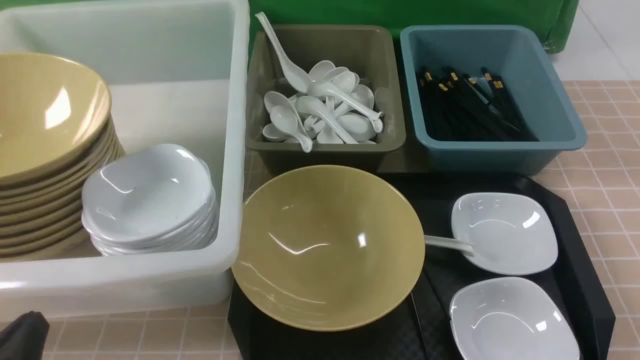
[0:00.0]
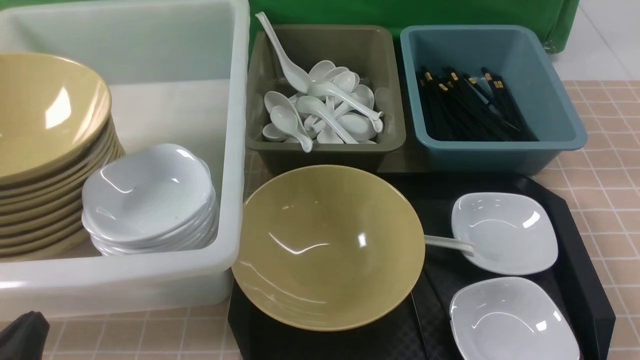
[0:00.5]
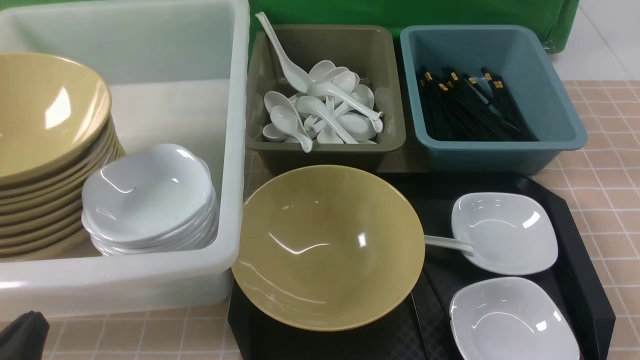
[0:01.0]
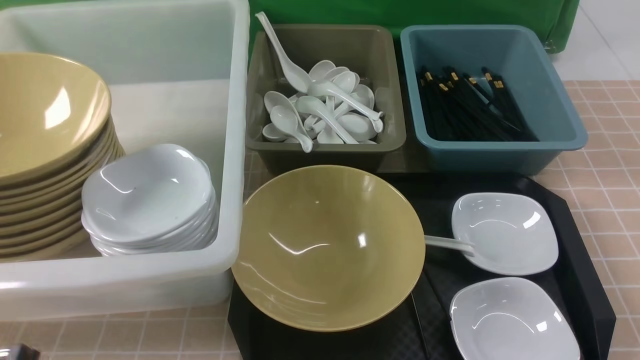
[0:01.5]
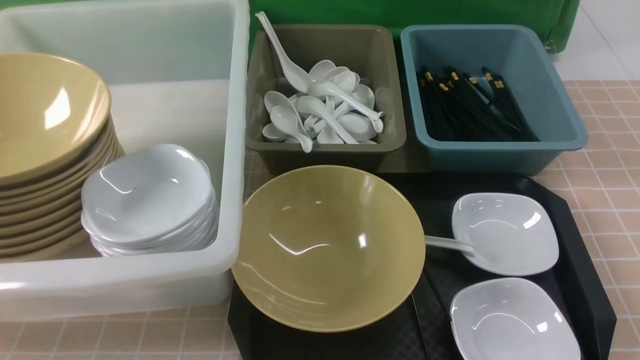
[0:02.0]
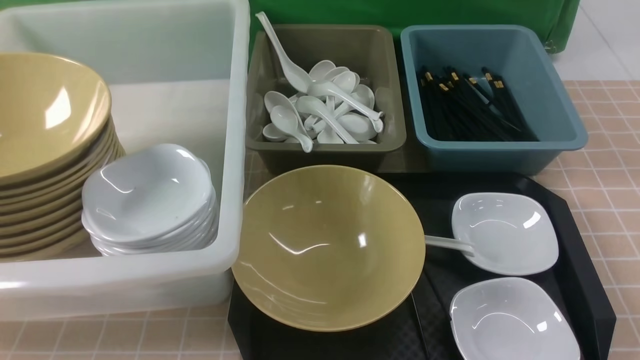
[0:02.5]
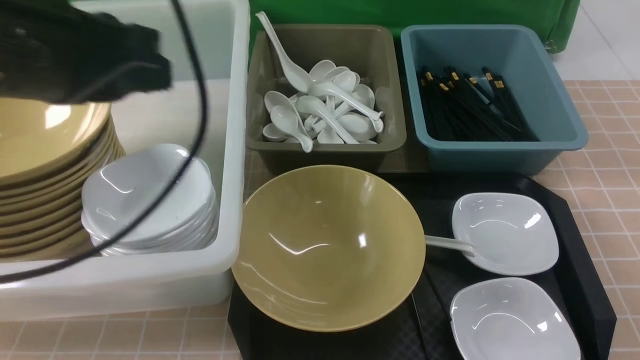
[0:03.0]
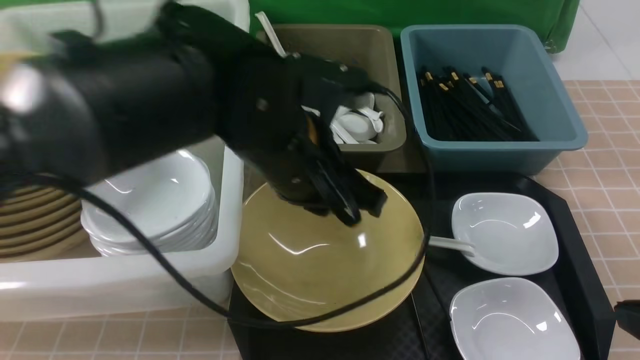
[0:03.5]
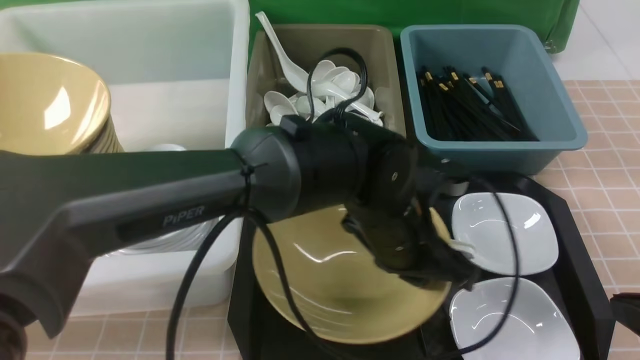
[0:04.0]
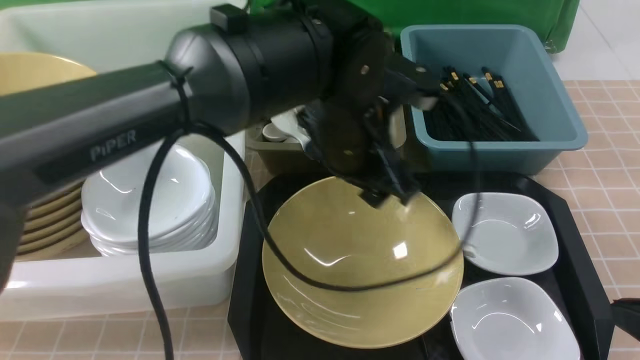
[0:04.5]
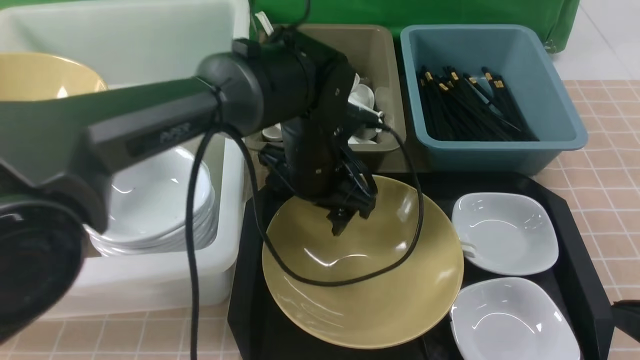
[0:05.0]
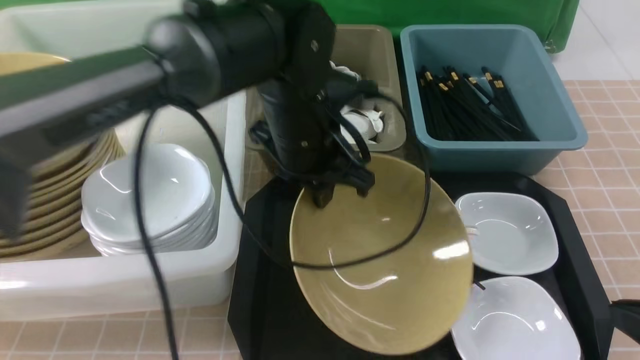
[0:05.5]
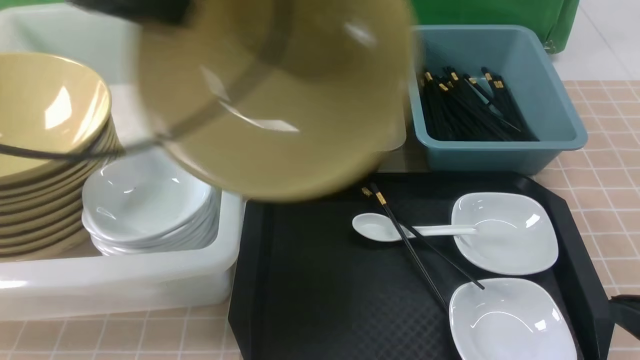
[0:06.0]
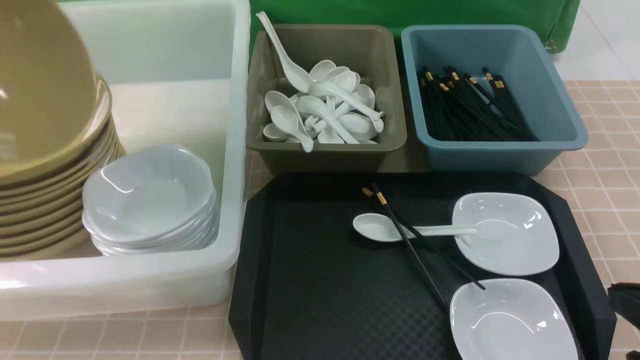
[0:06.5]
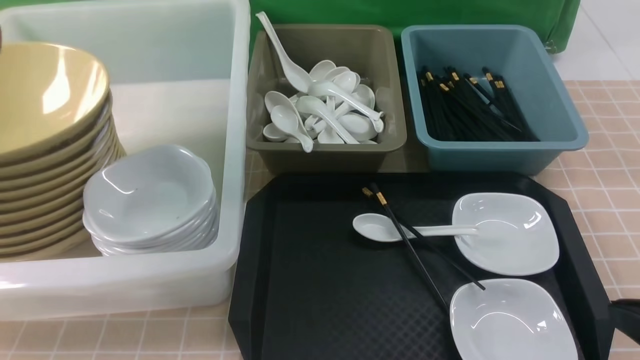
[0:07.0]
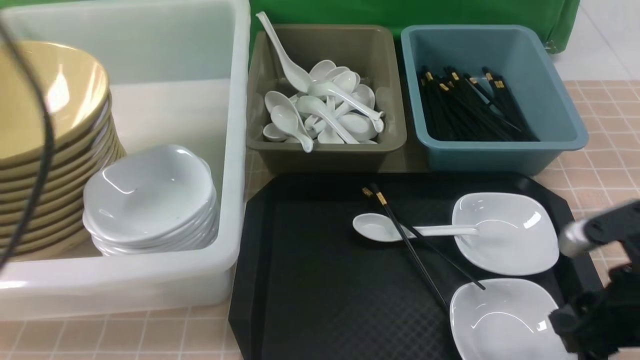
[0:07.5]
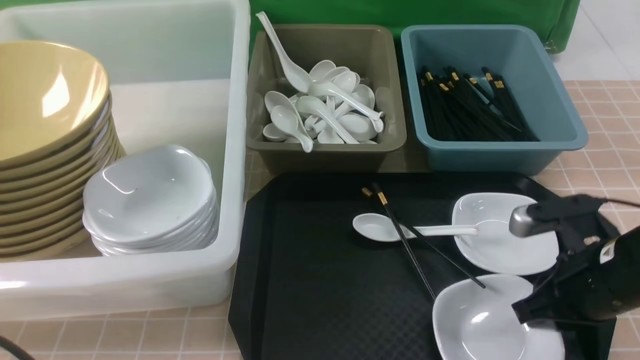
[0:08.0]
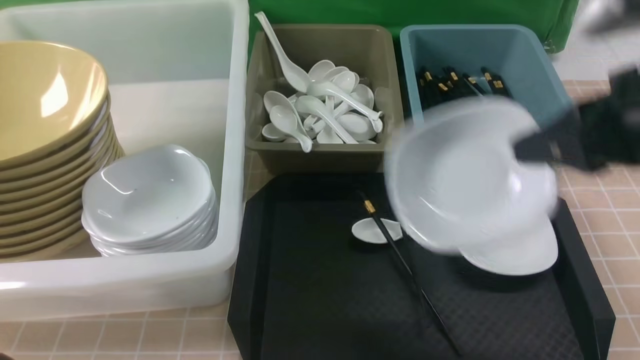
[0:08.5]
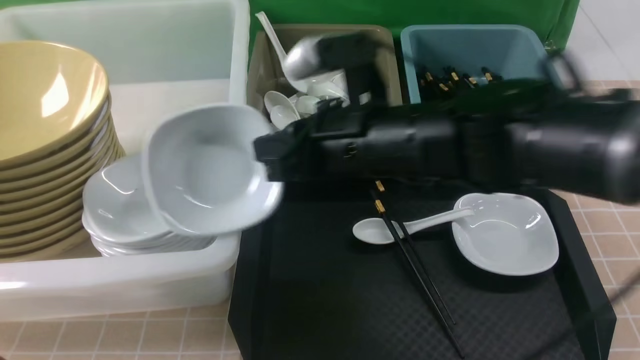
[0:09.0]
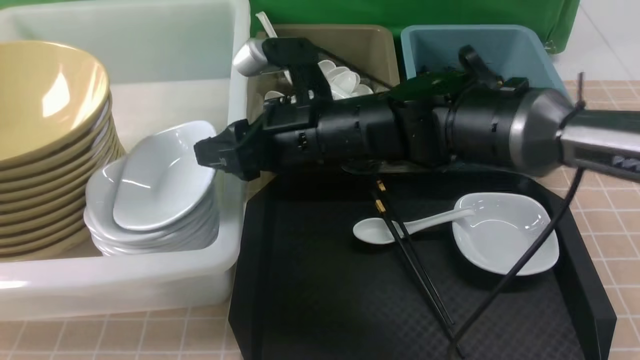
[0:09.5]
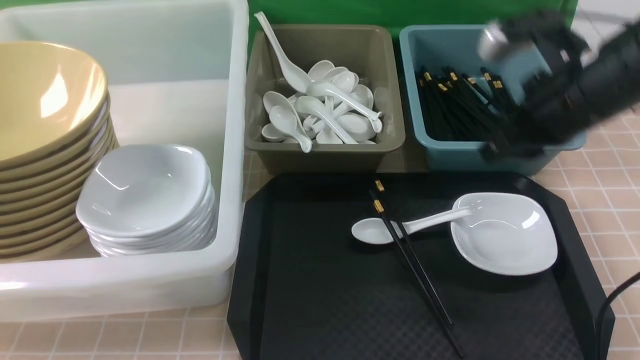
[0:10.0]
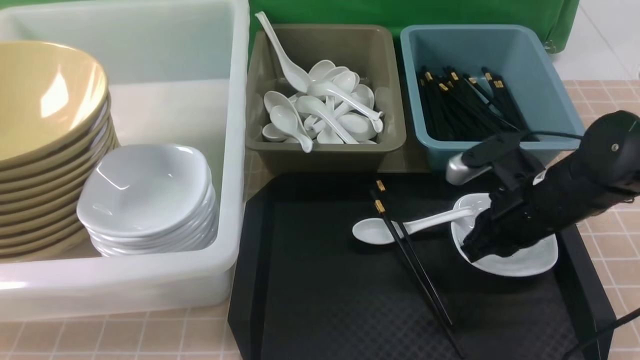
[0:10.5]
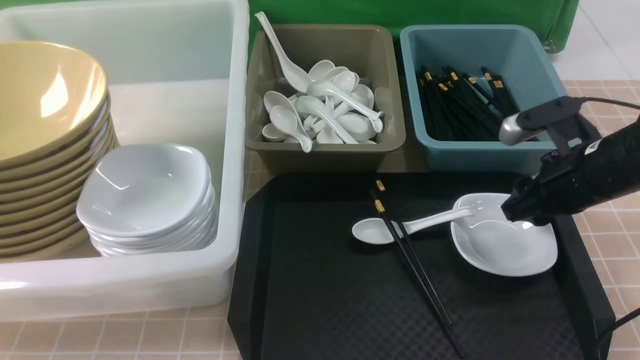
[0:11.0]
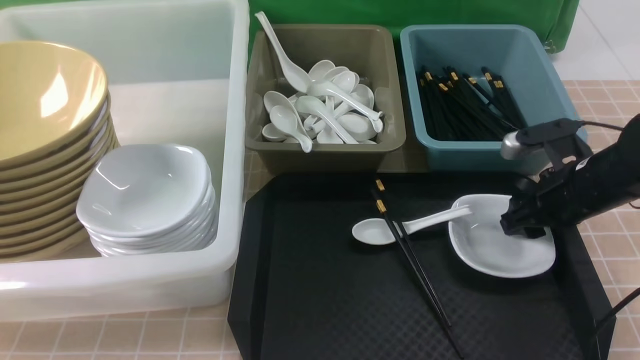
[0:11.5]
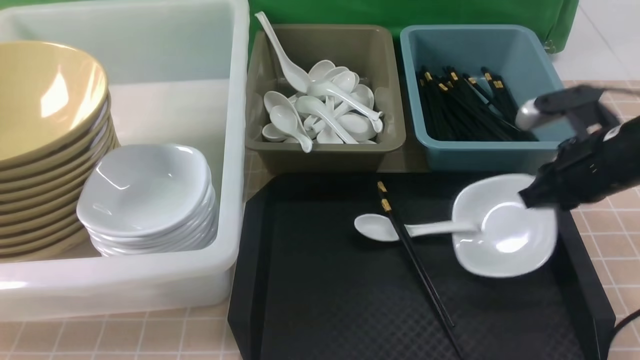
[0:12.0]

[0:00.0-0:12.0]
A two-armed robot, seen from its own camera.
Task of the whole recording: on brown table put chopsticks spoon bowls plates into blue grey white boxes.
Step, 0:00.0 to 0:05.0: use the left arm to grab the yellow noodle bowl on the left.
Step, 0:06.0 to 0:07.0: use the left arm to put the noodle bowl into the large storage box on the left.
Step, 0:08.5 to 0:09.5: use the right arm to put the plate into the large storage box on the left.
Step, 0:10.0 to 0:11.5: use the right arm to grab the plate.
0:00.0 to 0:02.0: Both grippers travel together upward, some 10 cm.
0:02.0 to 0:04.0: The right gripper moves forward, some 5 cm; the left gripper travels to the right and forward by about 40 cm.
0:04.0 to 0:06.0: The left gripper heads to the left and upward, covering roughly 35 cm, and opens, then closes once more.
0:06.0 to 0:08.0: The left gripper goes about 25 cm backward and downward, and opens, then closes once more. The right gripper heads forward, covering approximately 10 cm, and opens, then closes once more.
0:08.0 to 0:10.0: The right gripper heads forward and upward, covering some 15 cm, reaches approximately 20 cm to the left, then returns, and opens and closes again.
0:10.0 to 0:12.0: The right gripper moves to the right, about 5 cm, reaches approximately 10 cm downward, then returns, and opens, then closes again.

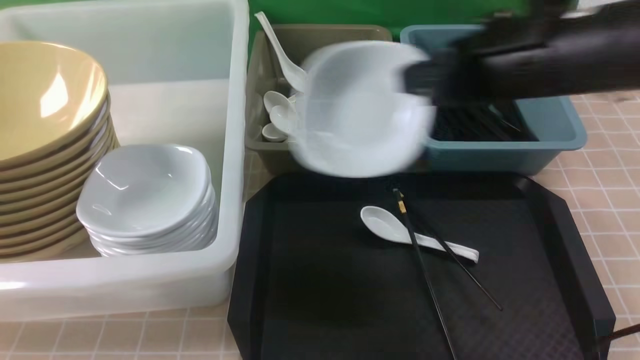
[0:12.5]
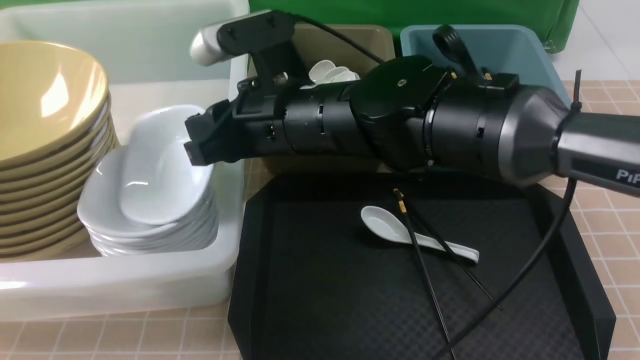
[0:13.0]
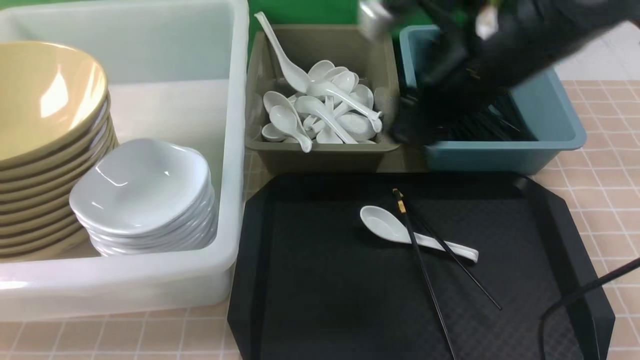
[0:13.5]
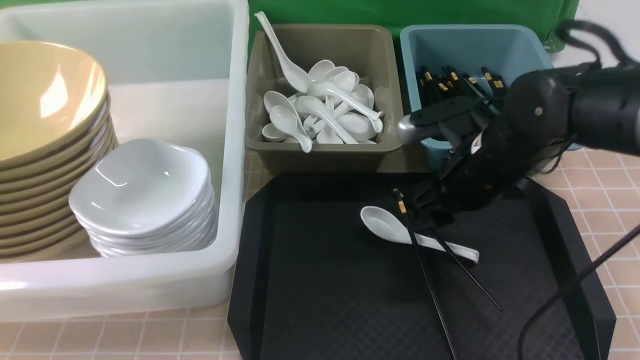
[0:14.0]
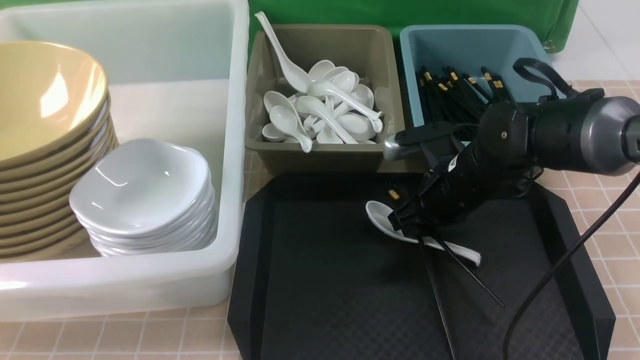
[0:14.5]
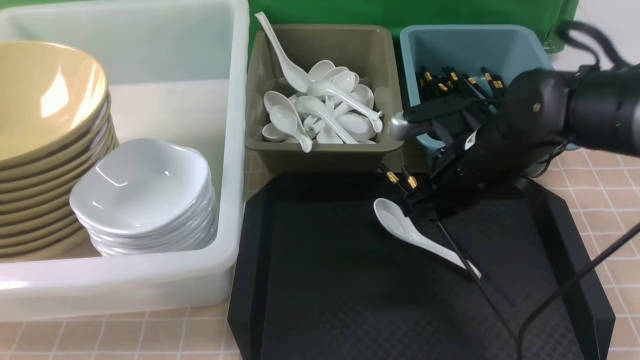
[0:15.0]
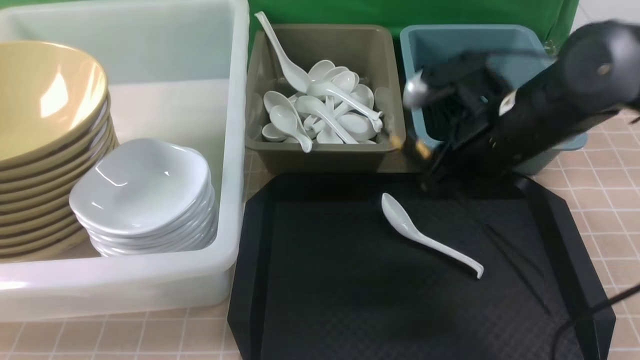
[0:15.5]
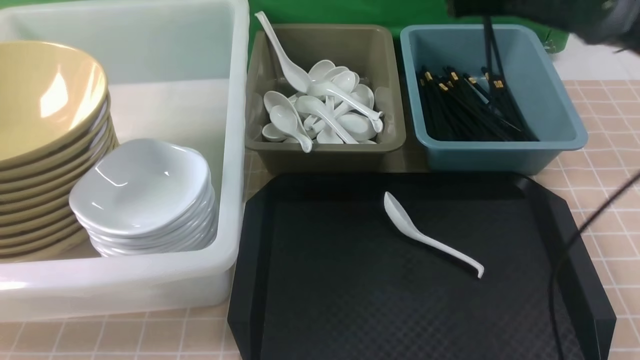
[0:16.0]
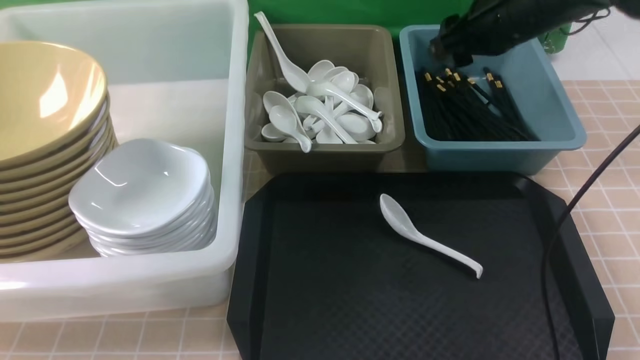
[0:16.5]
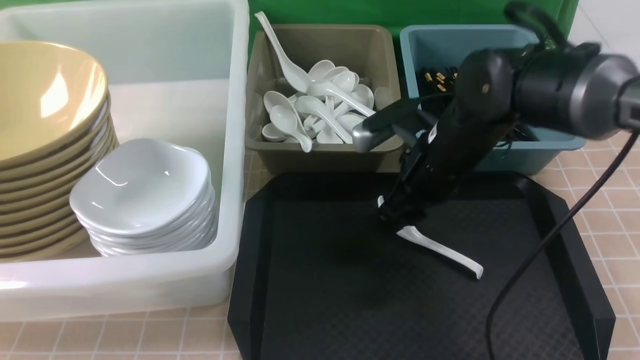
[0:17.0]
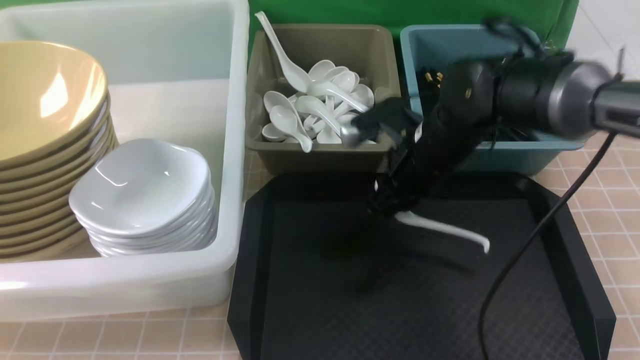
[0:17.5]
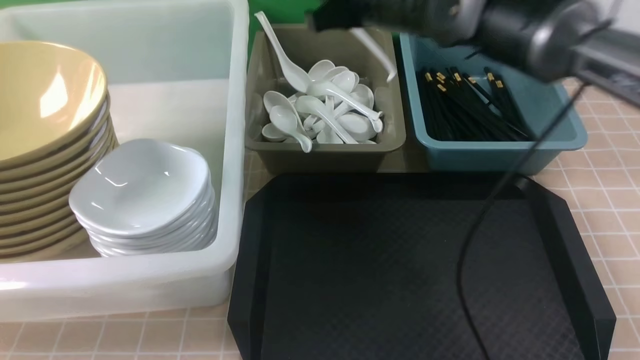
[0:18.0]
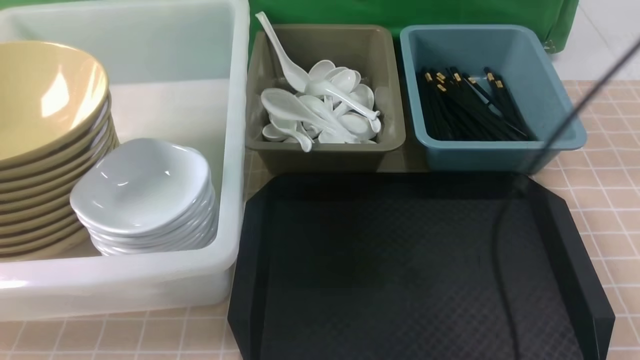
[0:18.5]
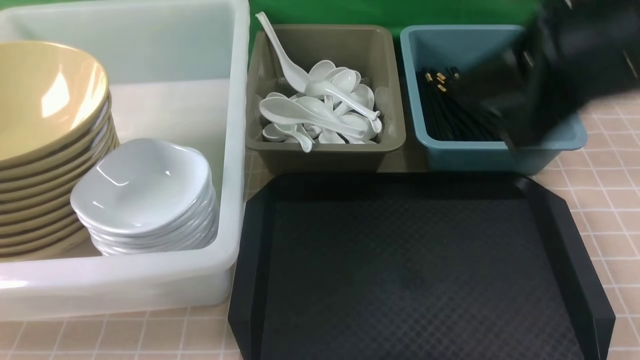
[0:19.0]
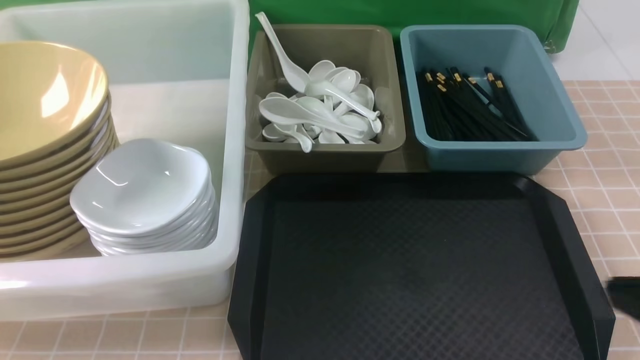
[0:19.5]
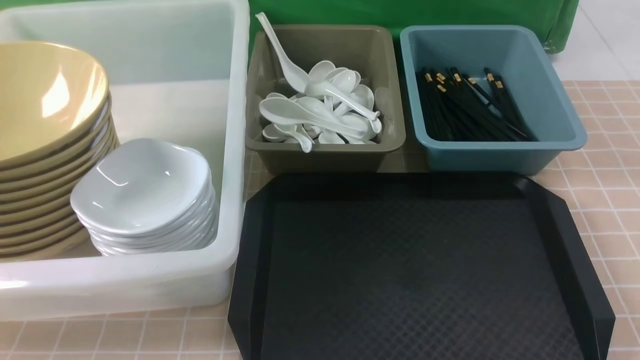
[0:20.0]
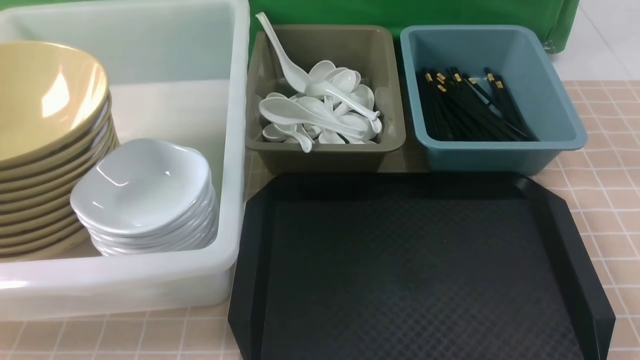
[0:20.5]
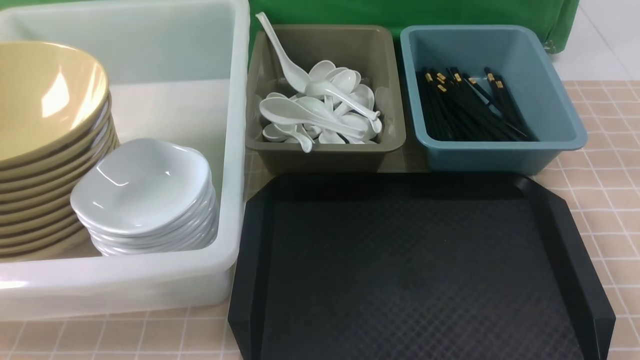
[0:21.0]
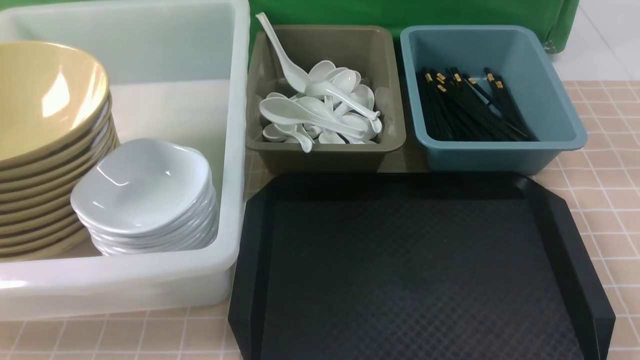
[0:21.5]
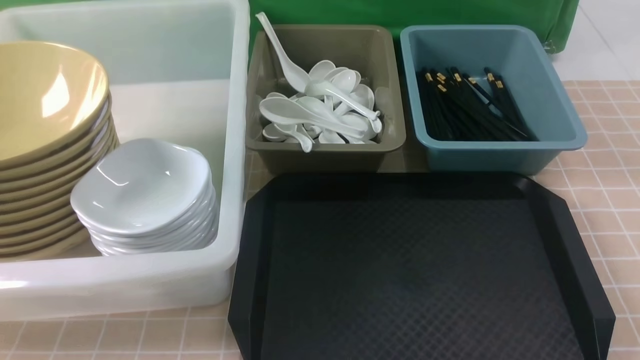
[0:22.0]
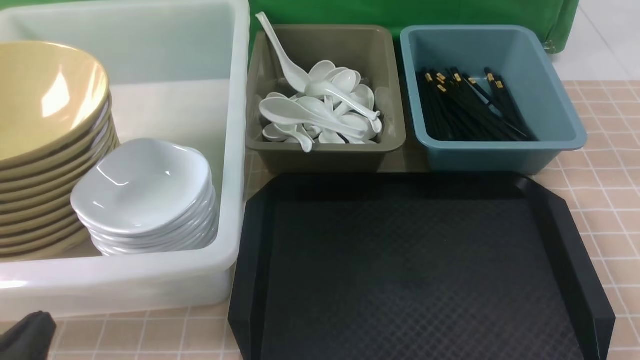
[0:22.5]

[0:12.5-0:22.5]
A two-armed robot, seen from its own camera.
Task of the whole recording: on brown table put chopsticks spoon bowls plates into blue grey white boxes.
Step, 0:13.5 to 0:15.0: use the right arm to grab the chopsticks.
Step, 0:15.5 to 0:16.0: use the right arm to put the chopsticks into the small storage box on the right.
Step, 0:16.5 to 0:17.0: use the right arm to grab the soup spoon in the middle.
Step, 0:18.0 to 0:18.5: use the right arm to put the soup spoon into the small storage box in the middle.
0:12.5 to 0:14.5: The right gripper goes some 15 cm downward, and opens.
0:14.5 to 0:16.5: The right gripper heads upward and forward, covering some 15 cm, and opens its fingers.
0:16.5 to 0:18.5: The right gripper goes approximately 15 cm upward and to the left, and closes up.
0:18.5 to 0:20.5: The right gripper travels backward, downward and to the right by some 50 cm.
0:20.5 to 0:22.5: The left gripper shifts roughly 10 cm downward.
